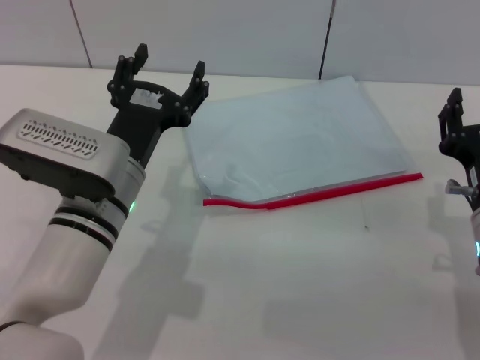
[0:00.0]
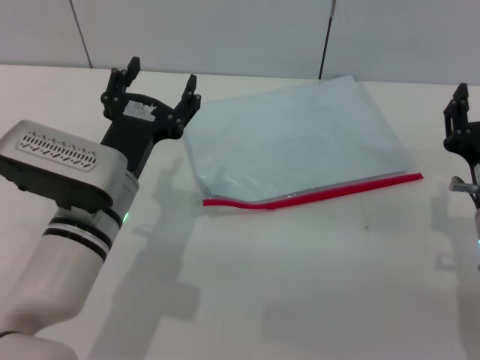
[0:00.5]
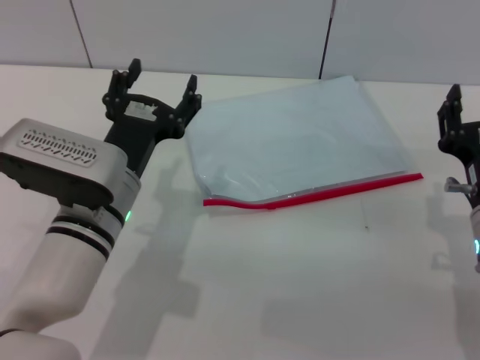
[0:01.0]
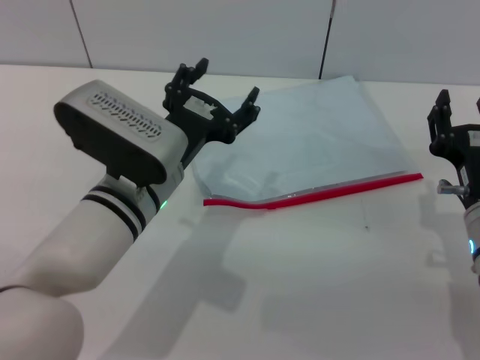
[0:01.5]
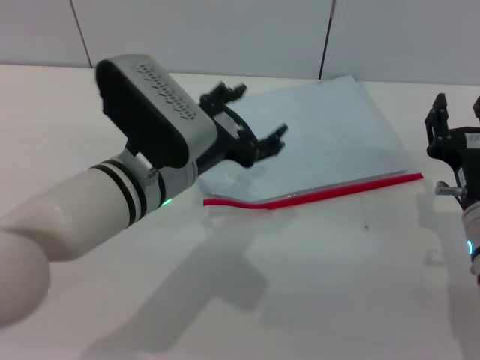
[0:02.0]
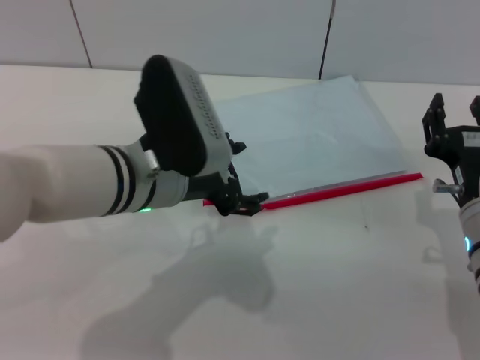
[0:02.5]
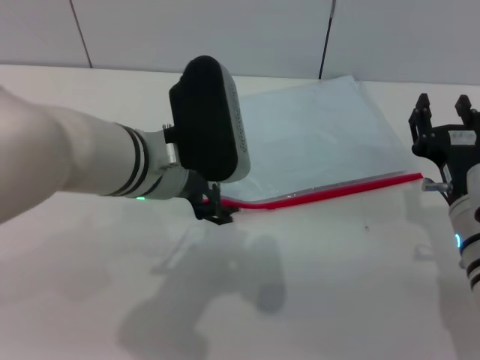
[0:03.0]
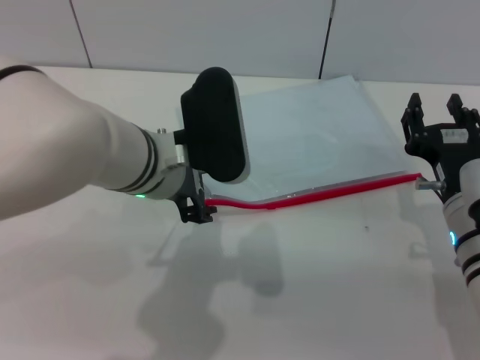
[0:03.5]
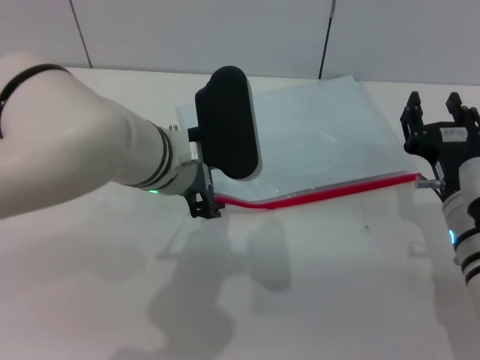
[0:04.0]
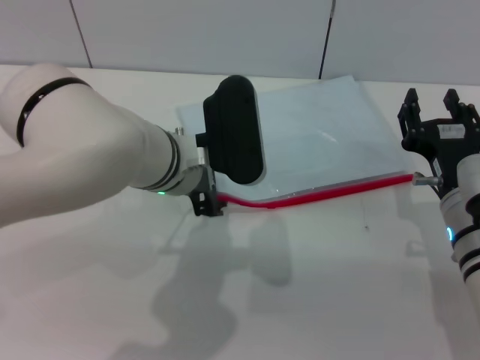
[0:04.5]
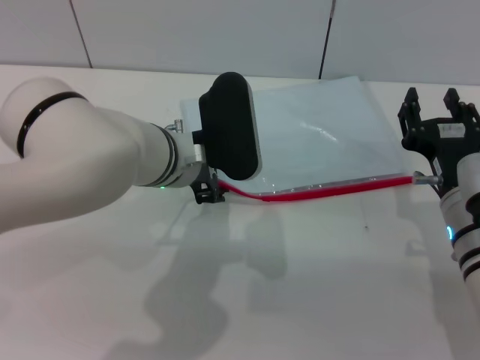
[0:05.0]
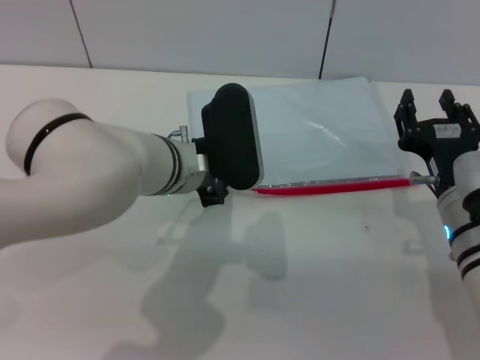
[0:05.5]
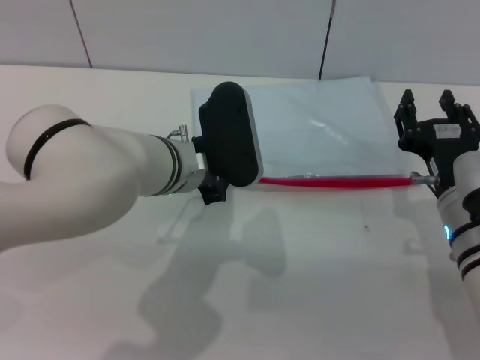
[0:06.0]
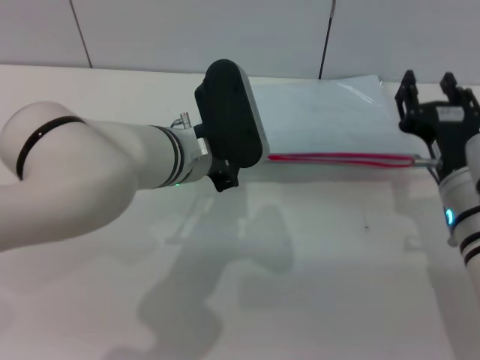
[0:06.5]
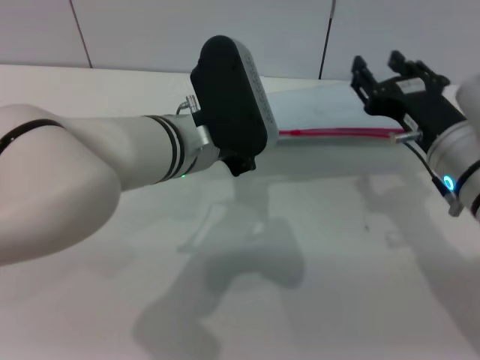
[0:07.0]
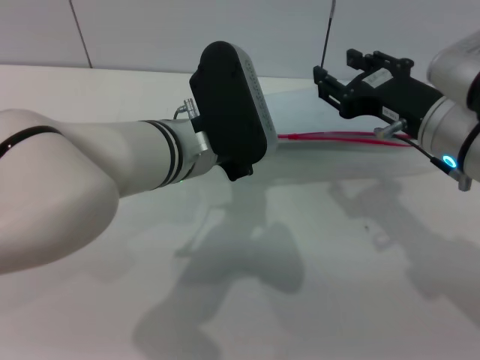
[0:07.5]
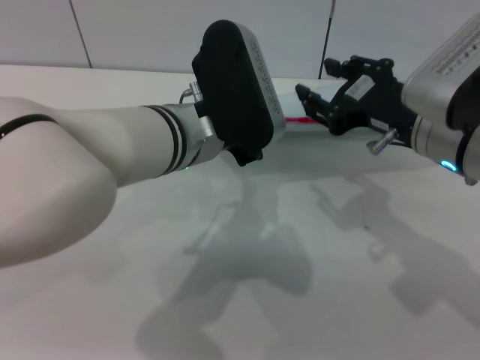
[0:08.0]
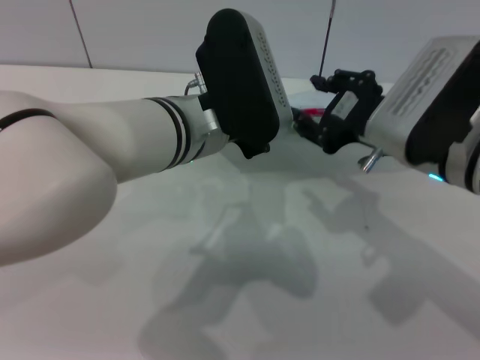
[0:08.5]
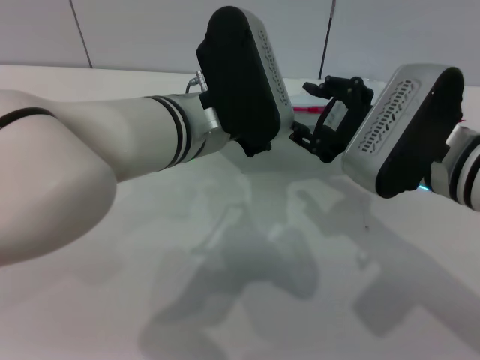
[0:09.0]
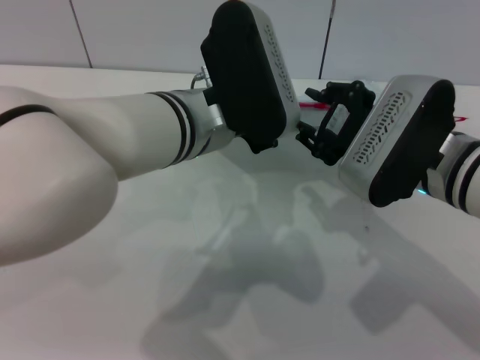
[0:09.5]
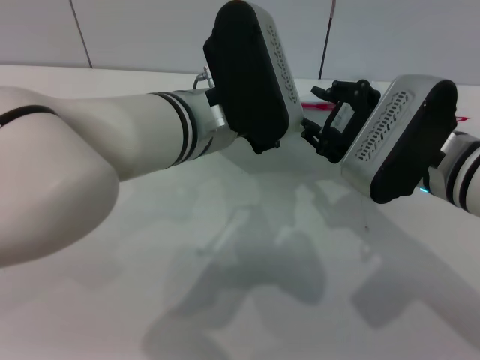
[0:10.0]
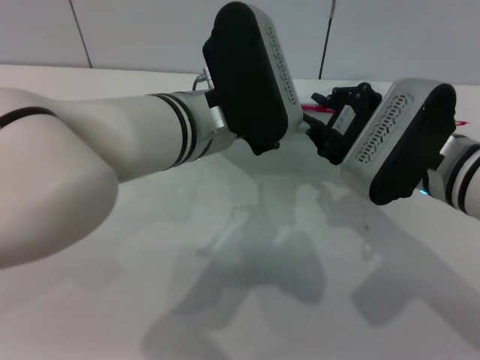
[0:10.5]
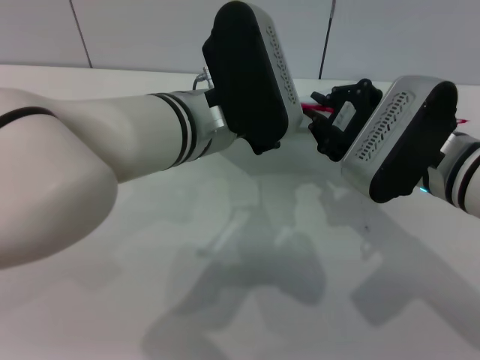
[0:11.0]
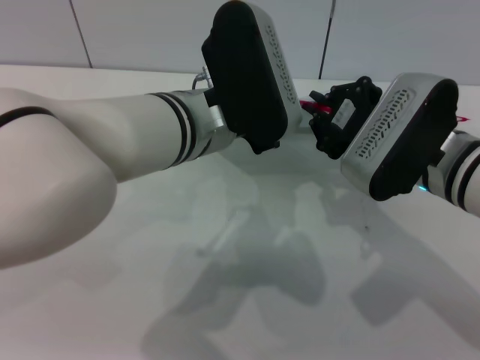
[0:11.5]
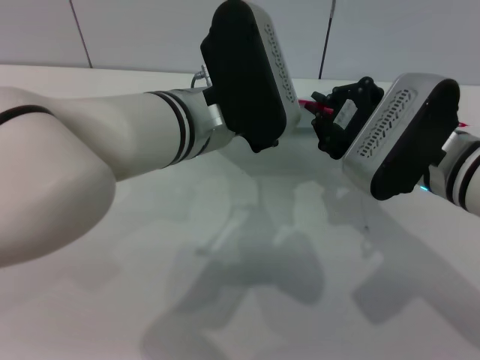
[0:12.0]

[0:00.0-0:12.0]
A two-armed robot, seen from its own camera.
Step, 0:00.0 to 0:06.5: Pick up the transparent plastic bag with the left gripper.
0:00.0 to 0:02.0: The left gripper shifts by approximately 5 cm.
0:04.0 to 0:06.0: The left gripper closes its fingers.
0:06.0 to 0:08.0: The left gripper shifts some 5 cm upward. The right gripper heads upward, covering roughly 10 cm.
0:10.0 to 0:12.0: The right gripper closes its fingers.

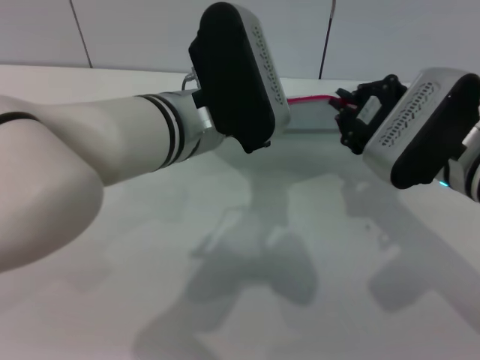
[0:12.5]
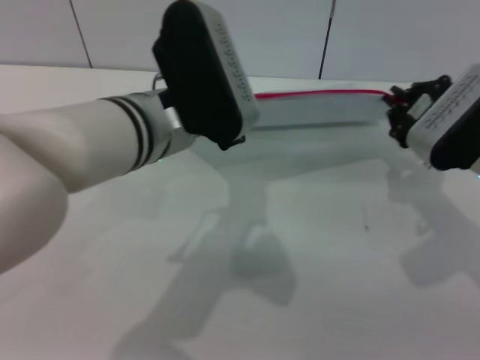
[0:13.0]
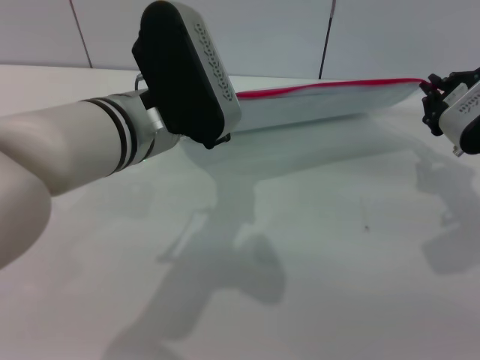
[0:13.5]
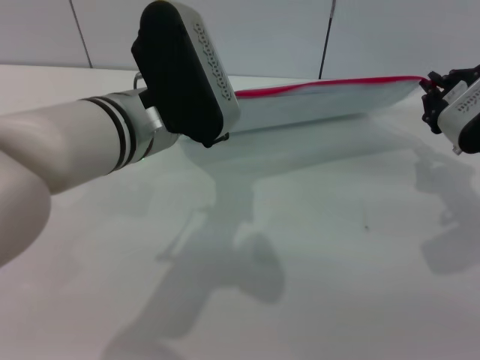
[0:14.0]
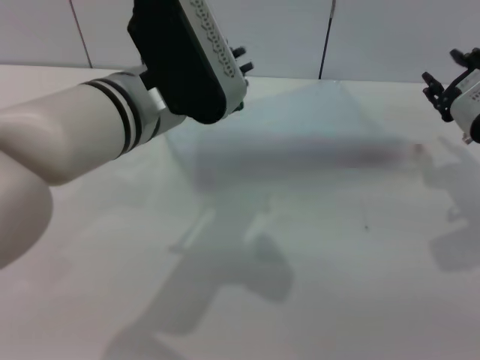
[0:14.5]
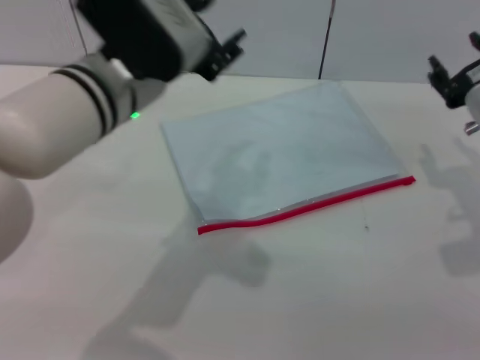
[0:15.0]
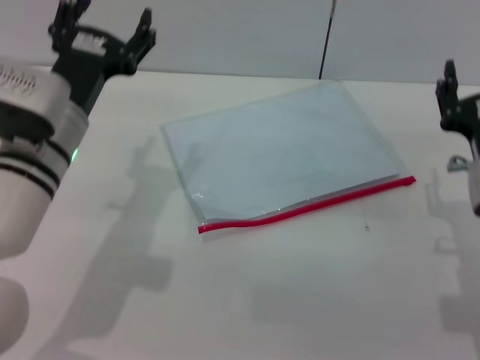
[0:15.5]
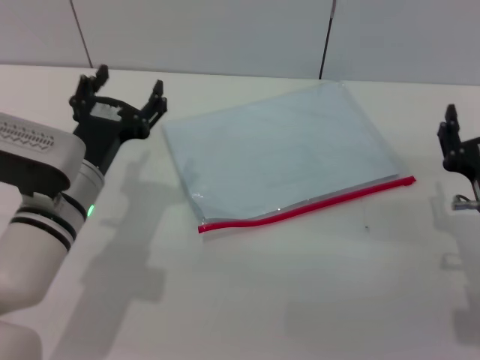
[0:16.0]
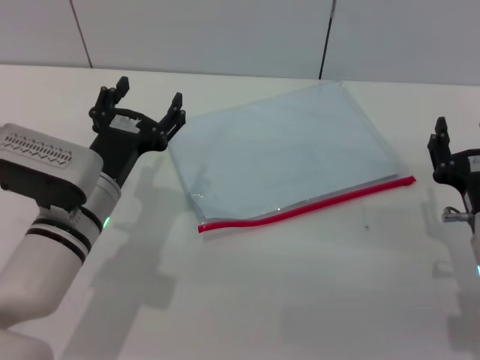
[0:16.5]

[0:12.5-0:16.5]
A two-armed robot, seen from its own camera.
Step, 0:12.5 to 0:14.5: Pulling up the zipper on the transparent plastic bag with the right gripper to close it.
0:12.5 to 0:14.5: The right gripper is displaced to the right by roughly 10 cm, and opens.
0:14.5 to 0:16.5: The right gripper is displaced backward and downward by about 15 cm, and opens, while the left gripper is displaced downward and to the left by roughly 15 cm, and opens.

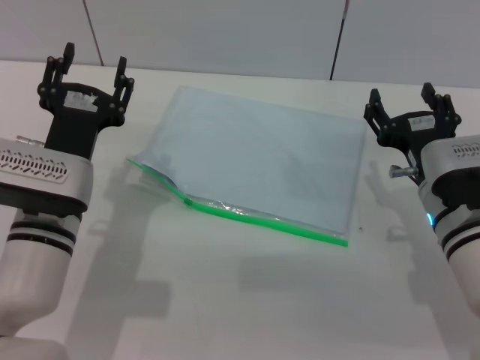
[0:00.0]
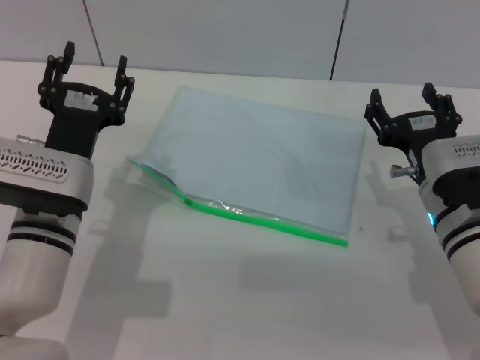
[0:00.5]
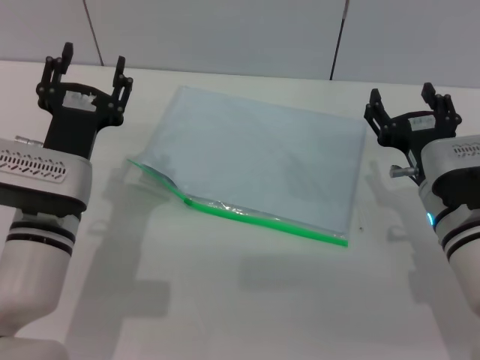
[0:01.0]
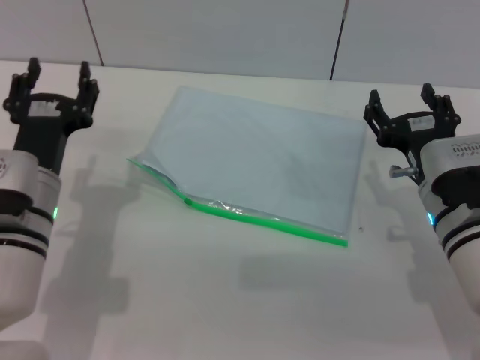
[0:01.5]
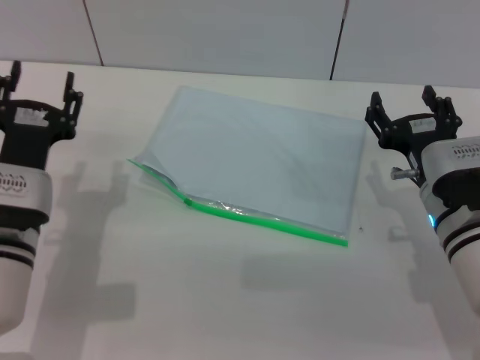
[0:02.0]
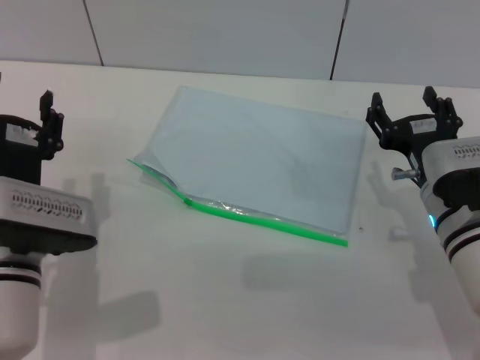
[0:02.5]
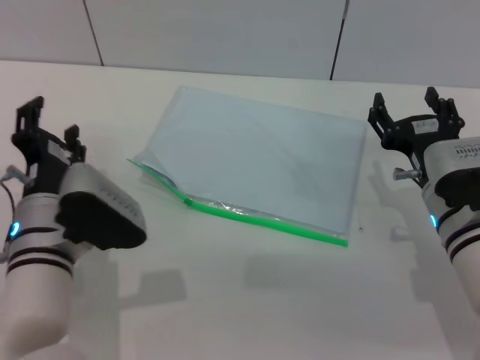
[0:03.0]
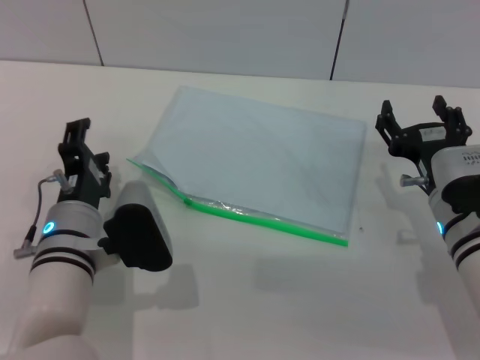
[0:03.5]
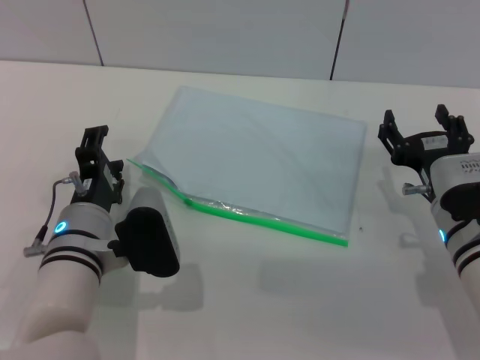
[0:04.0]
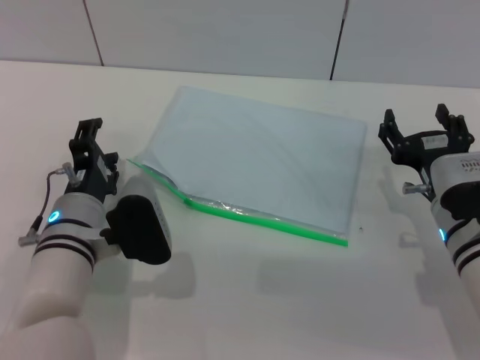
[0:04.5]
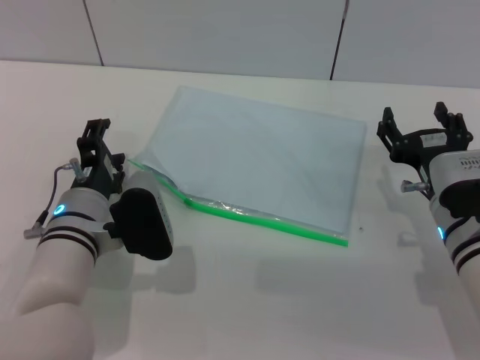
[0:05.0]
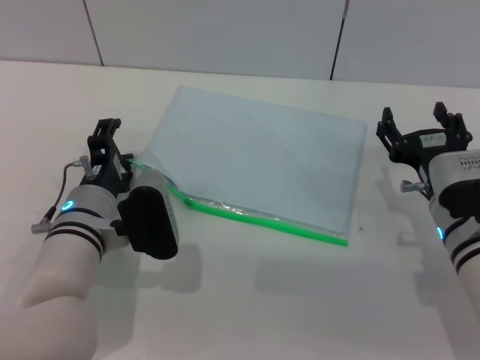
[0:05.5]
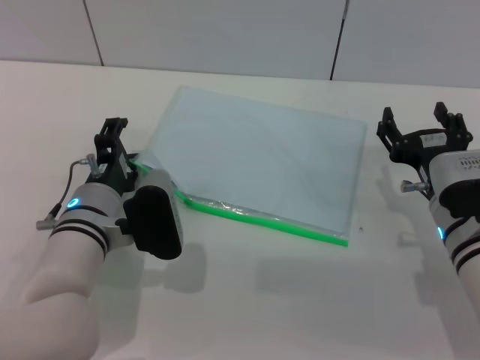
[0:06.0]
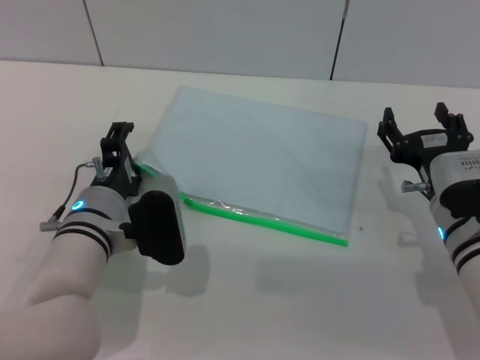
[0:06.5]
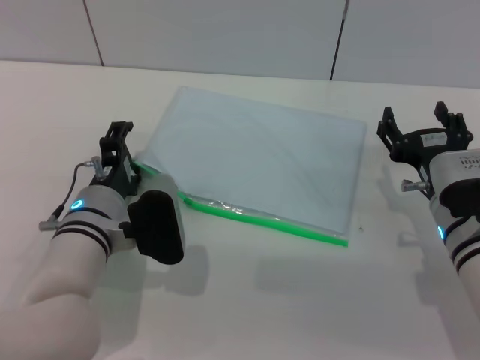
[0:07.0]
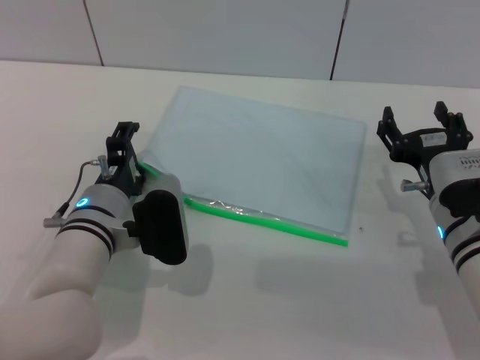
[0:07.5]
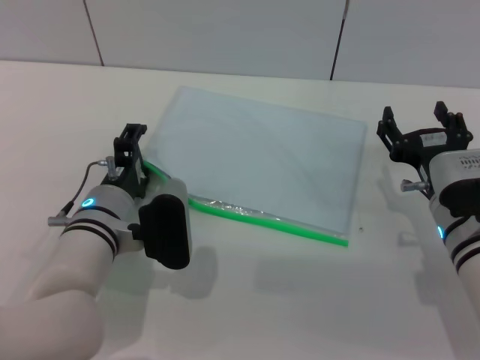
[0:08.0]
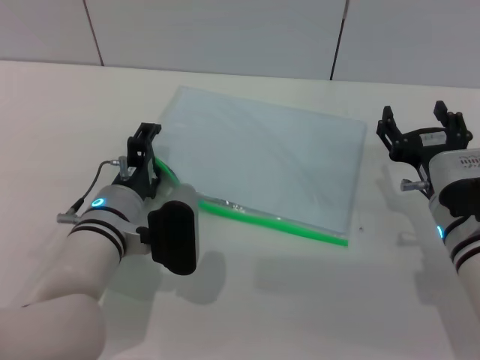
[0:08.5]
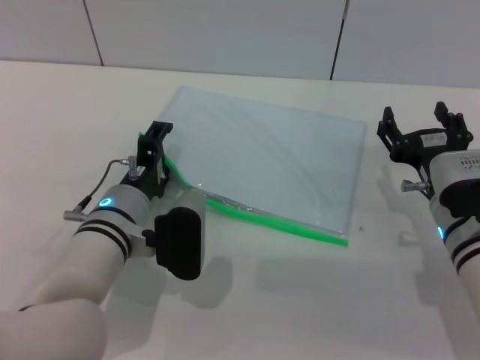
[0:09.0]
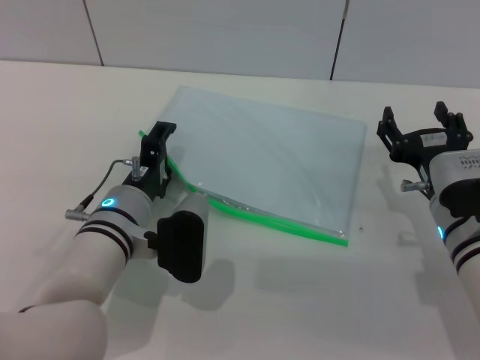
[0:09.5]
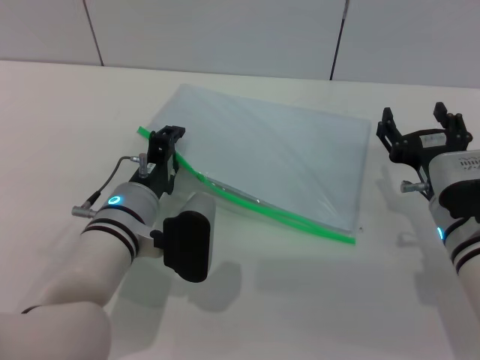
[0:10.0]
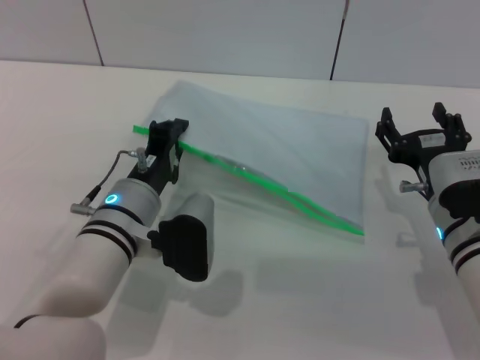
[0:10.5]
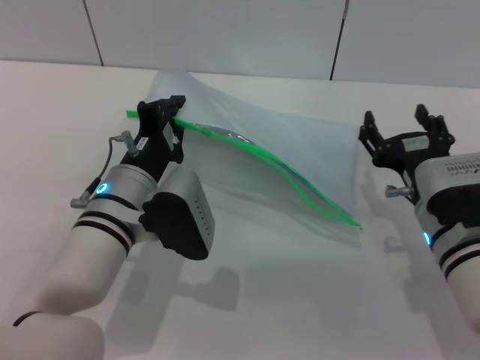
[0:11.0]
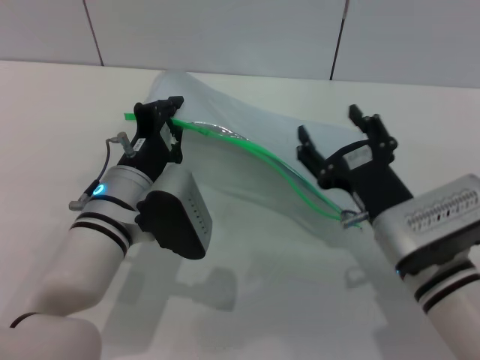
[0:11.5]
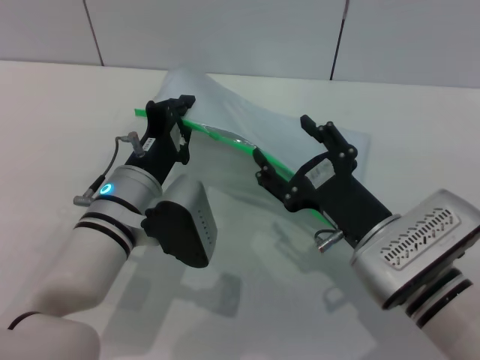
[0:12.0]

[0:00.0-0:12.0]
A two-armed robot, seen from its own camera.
Step, 0:00.0 to 0:10.0: Pick up the transparent plastic bag with the left gripper.
0:00.0 to 0:02.0: The grippers make only small movements.
0:02.0 to 0:04.0: The left gripper travels to the right by about 5 cm.
0:04.0 to 0:08.0: The grippers make only small movements.
0:08.0 to 0:10.0: The left gripper closes up.
0:10.0 to 0:12.0: The right gripper goes approximately 10 cm to the left and backward. The left gripper closes.
